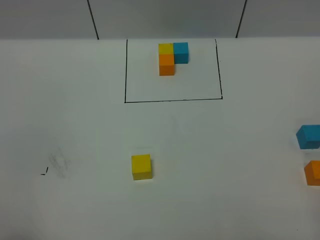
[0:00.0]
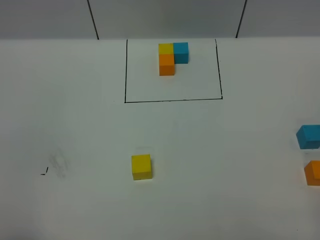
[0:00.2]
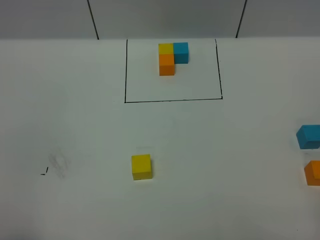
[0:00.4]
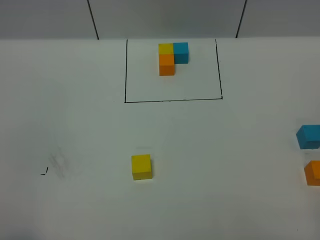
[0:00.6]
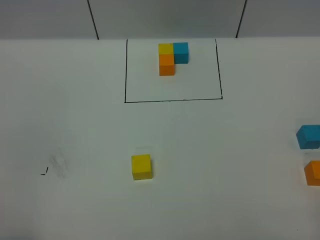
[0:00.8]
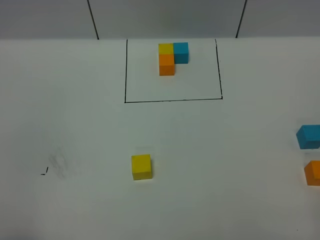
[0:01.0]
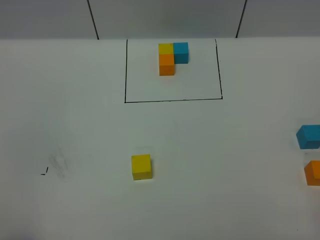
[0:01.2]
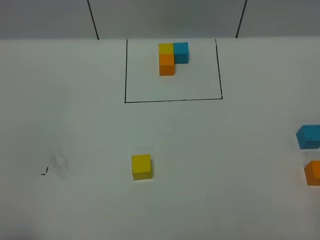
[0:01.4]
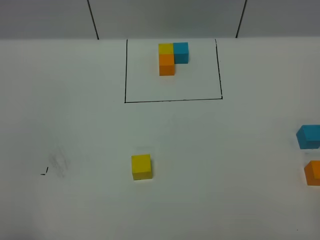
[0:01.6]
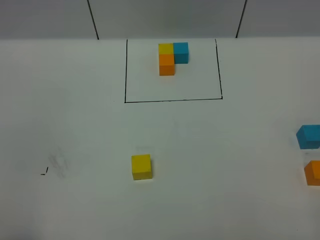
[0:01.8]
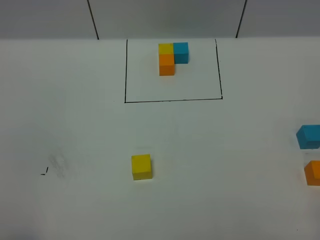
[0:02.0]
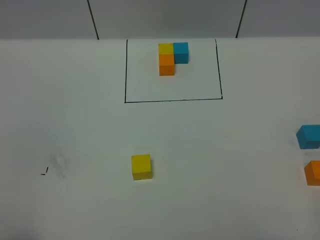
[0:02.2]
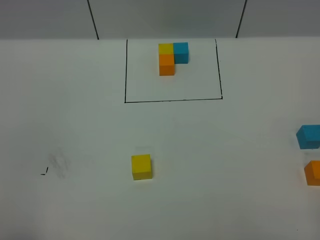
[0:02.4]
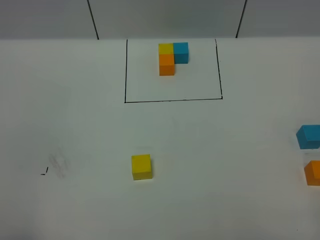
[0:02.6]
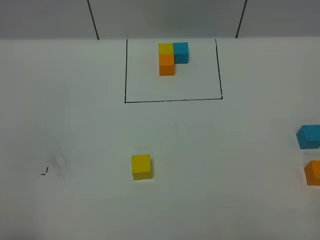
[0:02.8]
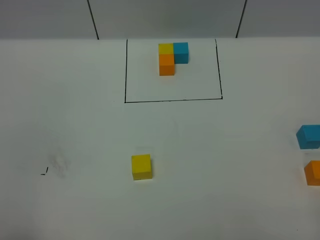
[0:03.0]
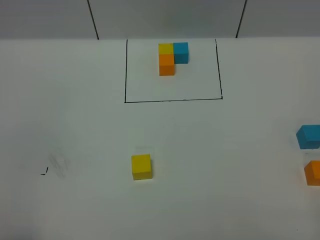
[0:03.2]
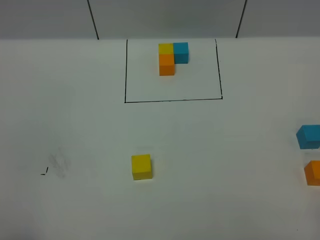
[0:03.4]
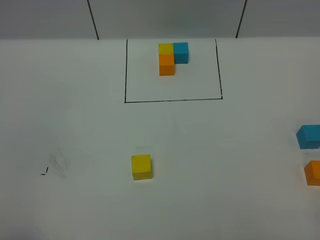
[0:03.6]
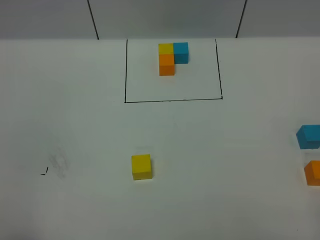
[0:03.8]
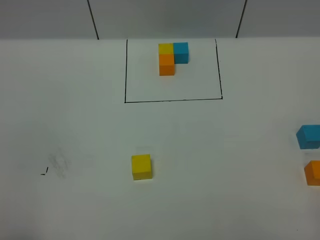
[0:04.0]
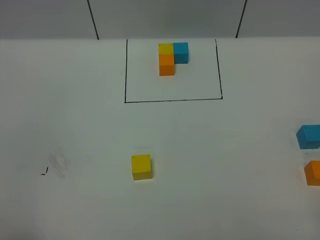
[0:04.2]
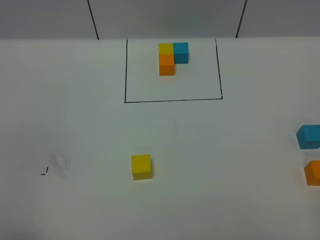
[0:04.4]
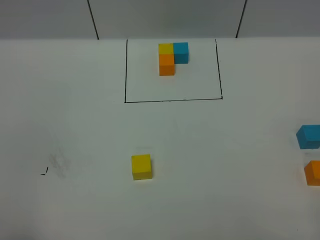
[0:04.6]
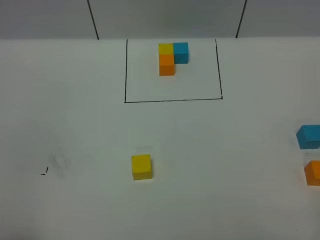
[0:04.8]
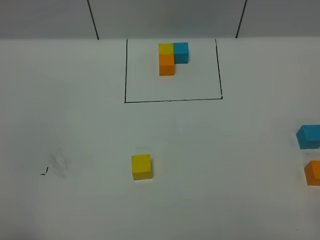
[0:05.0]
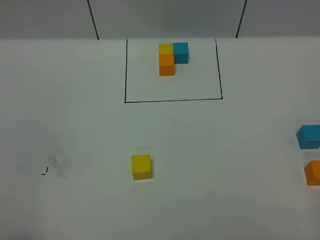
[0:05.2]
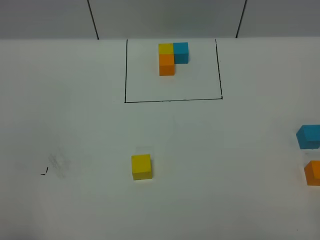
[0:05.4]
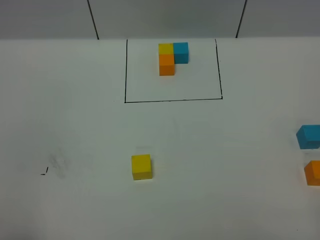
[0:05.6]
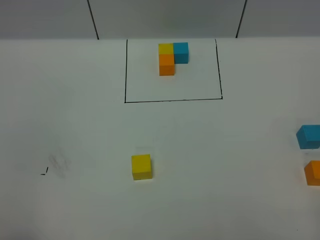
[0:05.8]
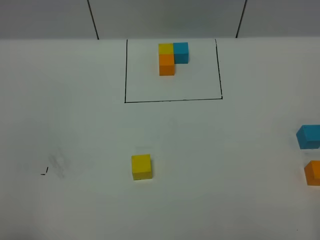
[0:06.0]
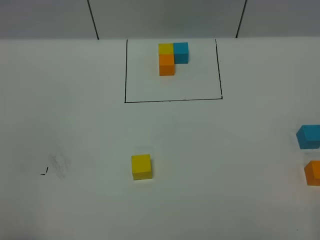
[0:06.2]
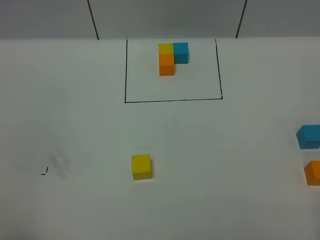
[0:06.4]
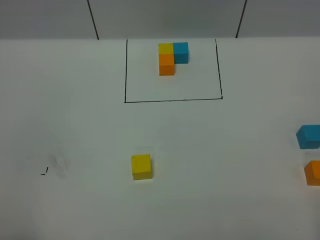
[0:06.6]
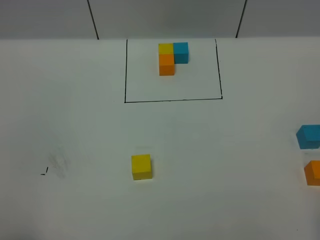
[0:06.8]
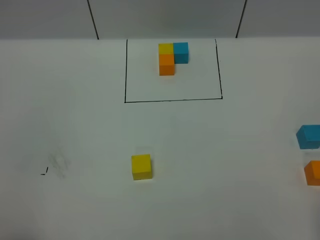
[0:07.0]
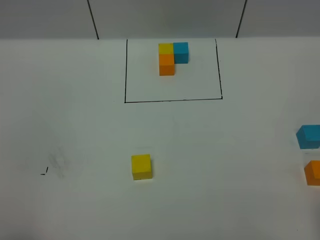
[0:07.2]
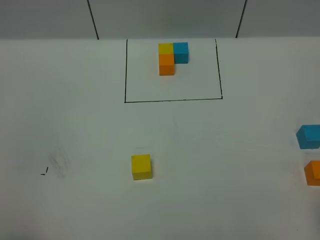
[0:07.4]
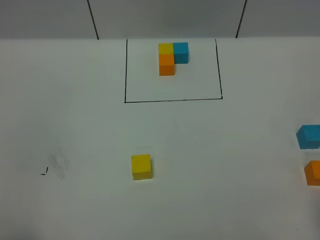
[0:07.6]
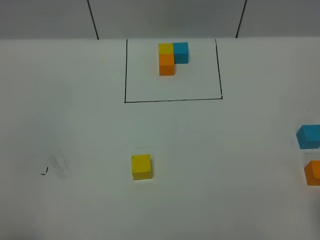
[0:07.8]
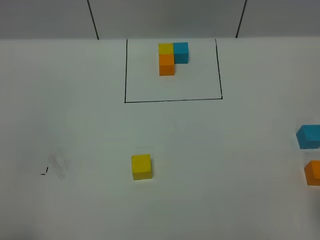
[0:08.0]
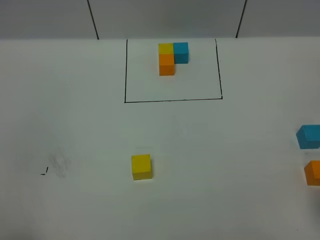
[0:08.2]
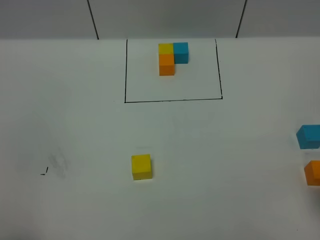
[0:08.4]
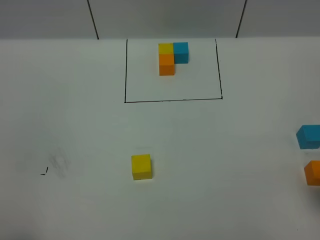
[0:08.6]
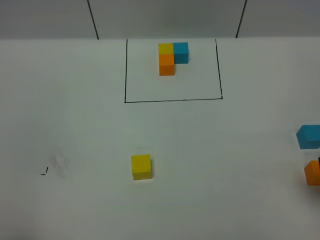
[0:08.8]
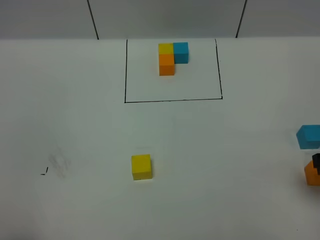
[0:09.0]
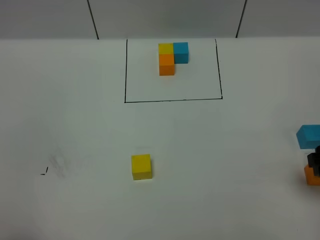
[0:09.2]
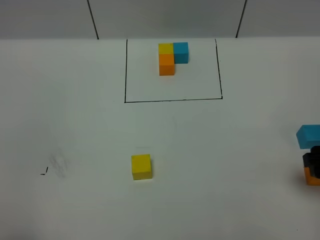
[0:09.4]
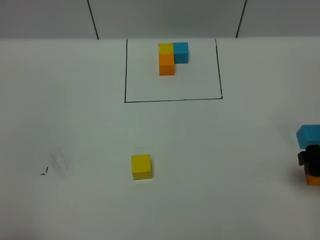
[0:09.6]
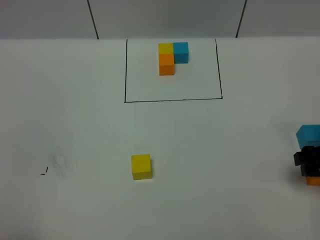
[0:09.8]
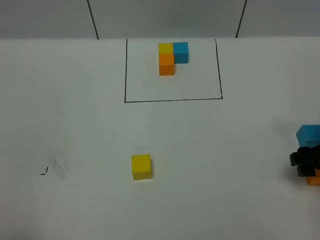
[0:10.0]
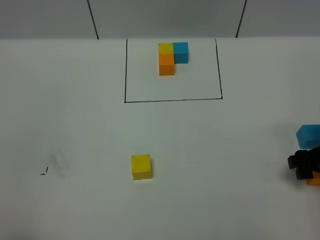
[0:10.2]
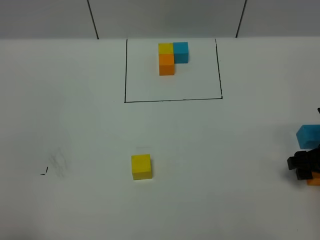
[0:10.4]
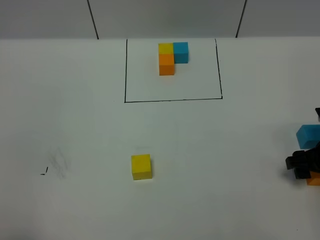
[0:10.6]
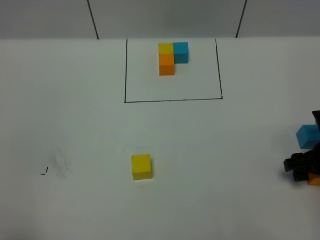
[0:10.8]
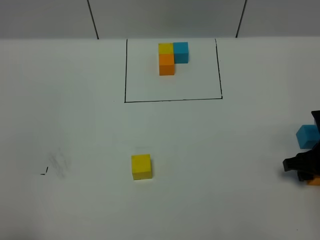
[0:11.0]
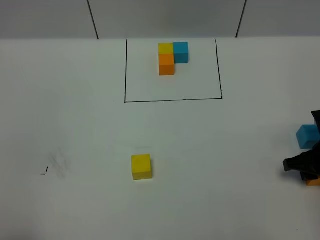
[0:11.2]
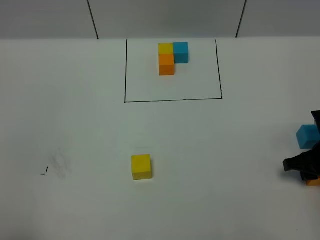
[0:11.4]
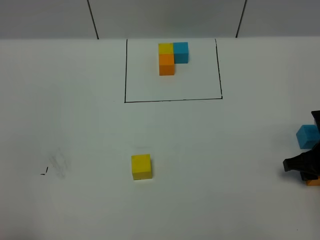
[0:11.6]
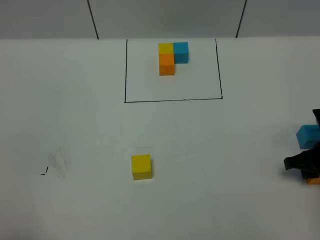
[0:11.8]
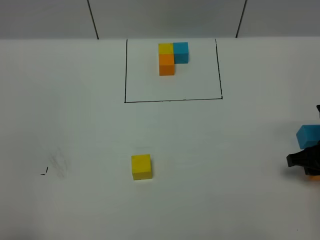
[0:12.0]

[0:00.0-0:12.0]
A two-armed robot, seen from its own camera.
Task of the whole recording: According to the building block template in front, assemble the scattered blocks together.
0:00.0 to 0:04.4: Both grippers stay about where they are.
0:09.0 to 0:10.4: The right gripper shifts some 10 cm downward and forward.

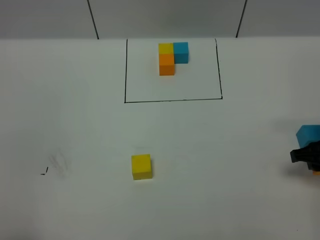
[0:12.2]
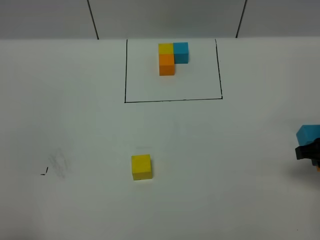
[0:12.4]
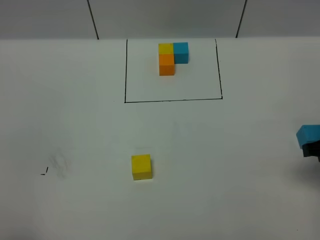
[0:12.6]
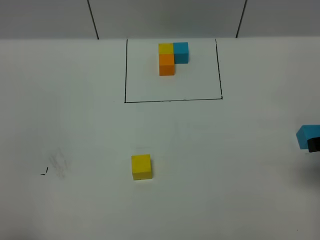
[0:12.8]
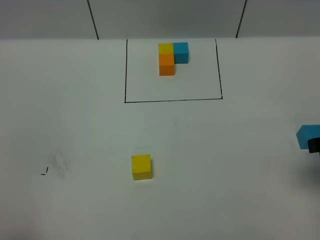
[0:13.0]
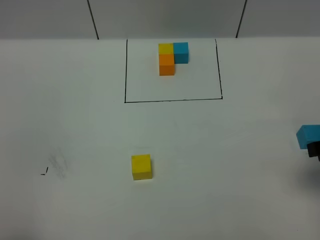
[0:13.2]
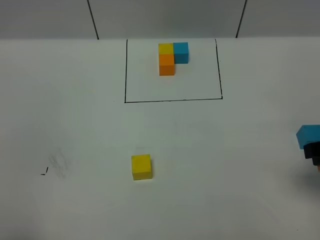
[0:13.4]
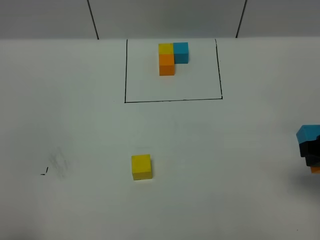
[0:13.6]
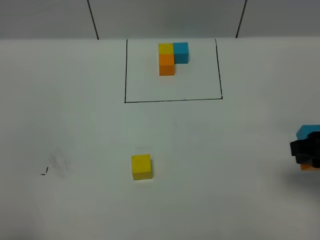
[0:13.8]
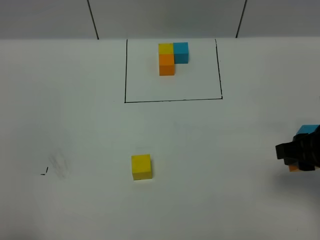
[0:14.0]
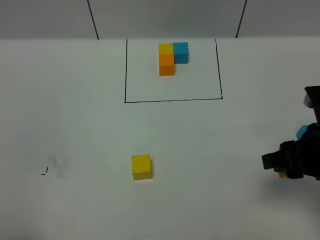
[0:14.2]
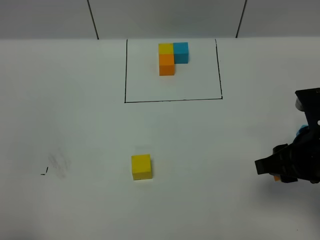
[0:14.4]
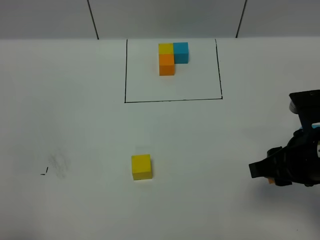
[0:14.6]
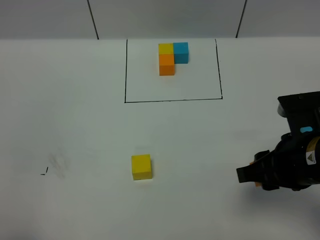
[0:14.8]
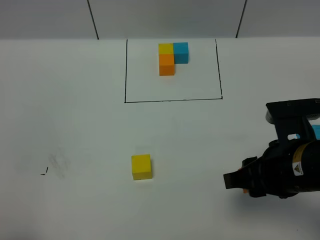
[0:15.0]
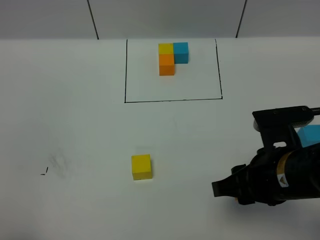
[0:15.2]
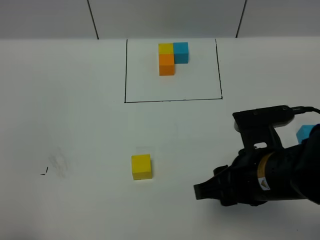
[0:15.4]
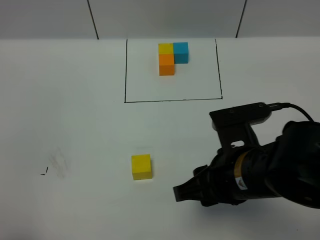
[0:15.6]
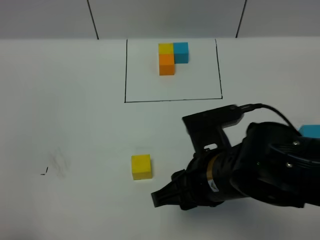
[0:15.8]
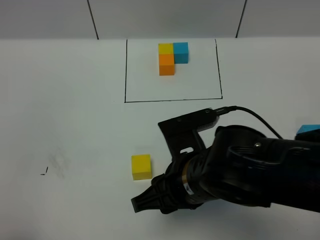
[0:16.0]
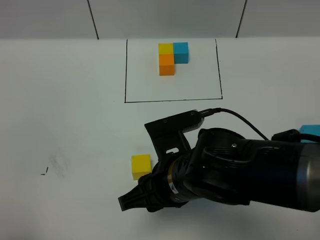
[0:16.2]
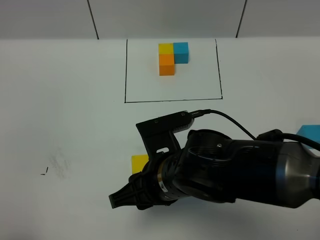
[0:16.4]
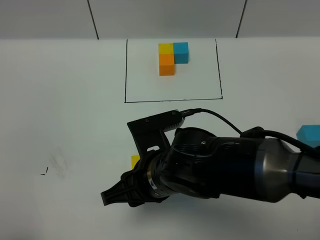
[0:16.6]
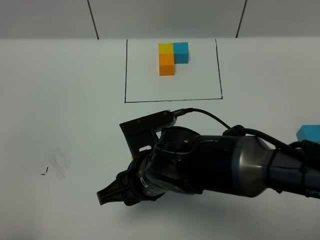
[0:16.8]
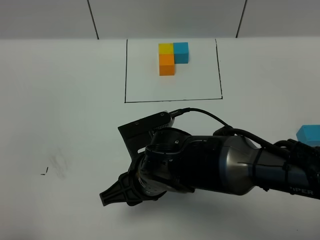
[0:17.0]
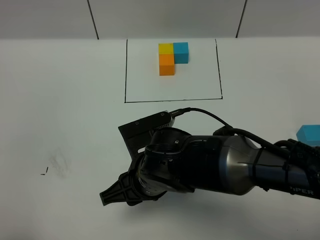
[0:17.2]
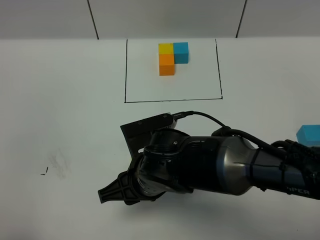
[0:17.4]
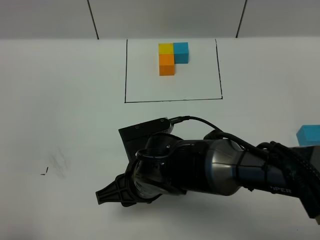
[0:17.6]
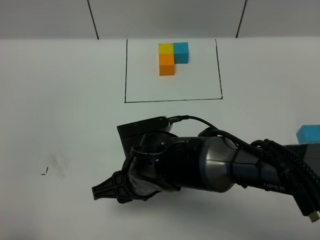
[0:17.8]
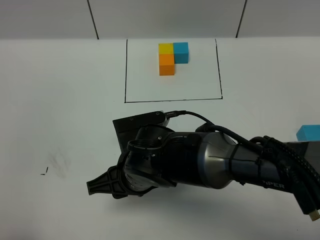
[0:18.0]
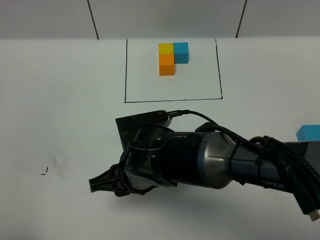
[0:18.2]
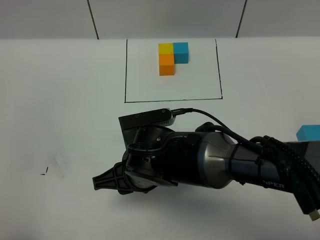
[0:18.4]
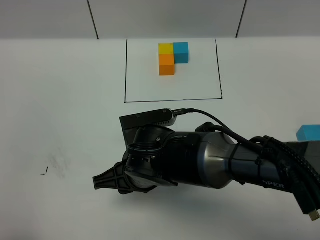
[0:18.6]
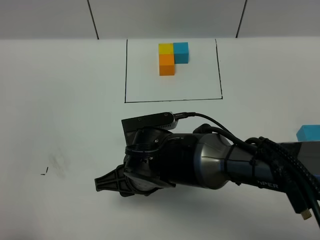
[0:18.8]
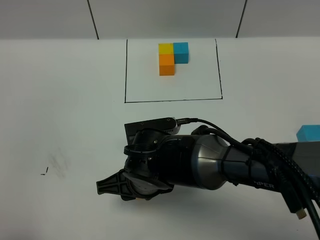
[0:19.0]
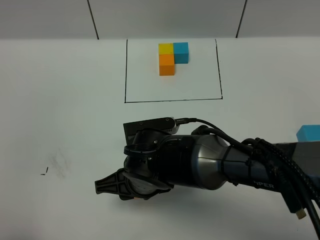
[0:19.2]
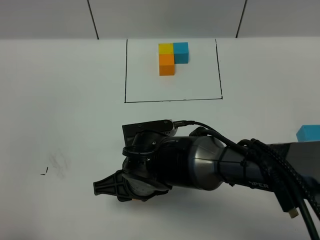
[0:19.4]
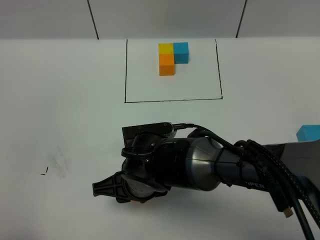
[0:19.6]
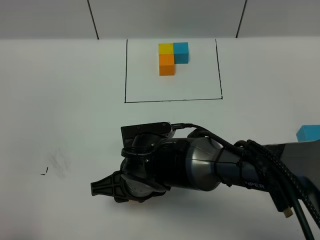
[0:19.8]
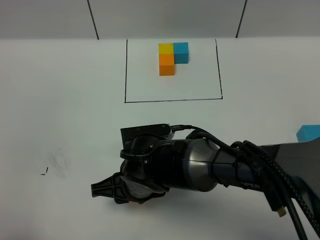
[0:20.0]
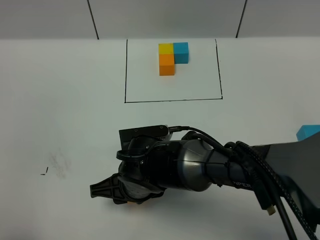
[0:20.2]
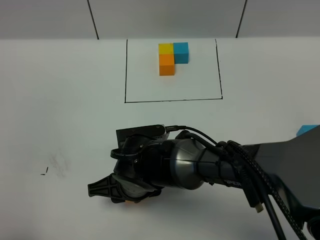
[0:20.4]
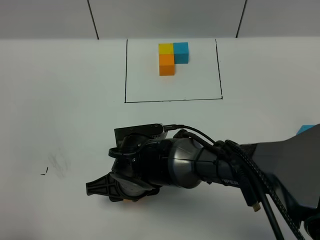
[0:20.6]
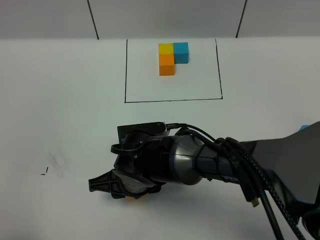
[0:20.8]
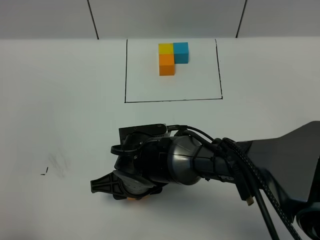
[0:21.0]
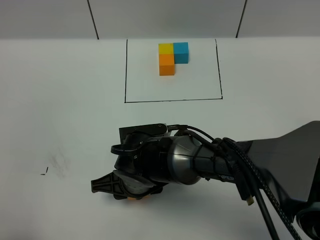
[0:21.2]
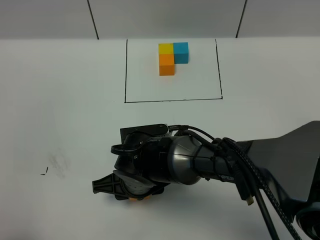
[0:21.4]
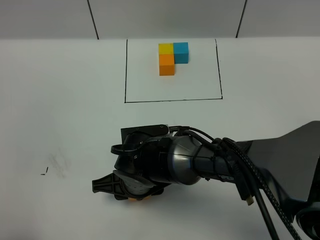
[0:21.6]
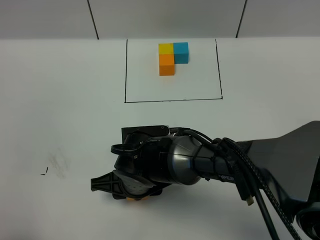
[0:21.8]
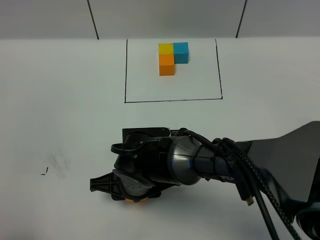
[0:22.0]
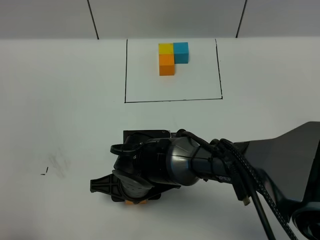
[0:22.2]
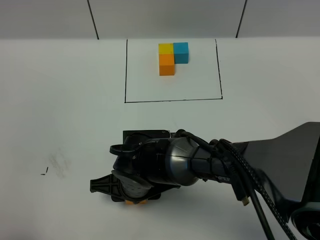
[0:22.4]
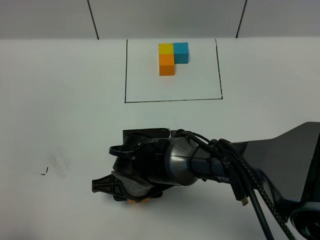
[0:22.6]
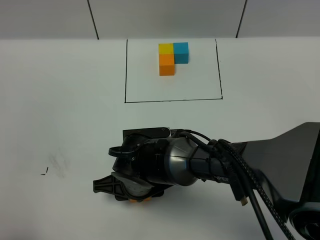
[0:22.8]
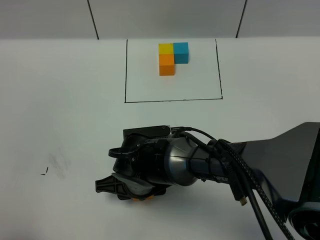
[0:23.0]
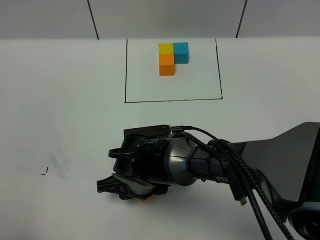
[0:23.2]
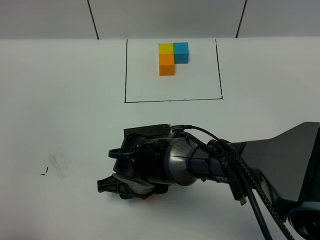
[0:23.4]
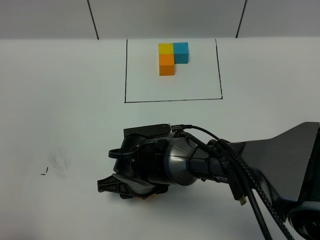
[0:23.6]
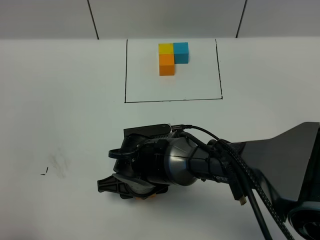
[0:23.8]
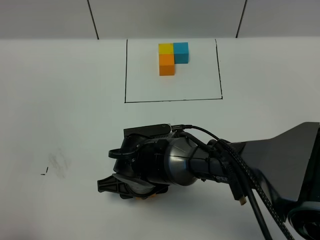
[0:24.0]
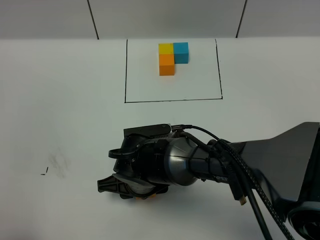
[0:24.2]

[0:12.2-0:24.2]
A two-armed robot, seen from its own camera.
Task of the whole recording: According to the building block template in front, assemble the scattered blocks together.
0:12.2 to 0:13.8: The right gripper is displaced upward by some 10 cm.
0:13.8 to 0:15.2: The right gripper heads to the left, covering roughly 10 cm.
0:15.2 to 0:16.6: The right gripper is displaced to the left by about 15 cm.
0:16.6 to 0:18.2: There are only small adjustments of the grippers.
0:18.2 to 0:22.6: The grippers make only small movements.
0:22.6 to 0:24.2: The grippers make only small movements.
